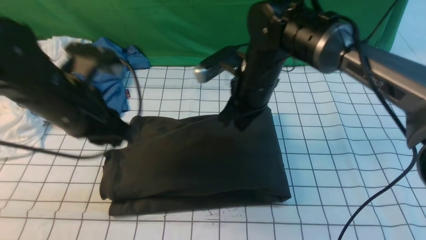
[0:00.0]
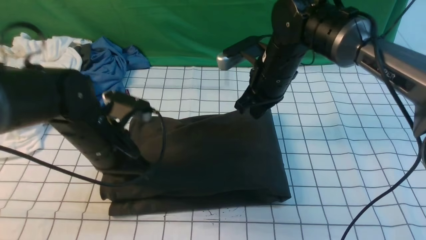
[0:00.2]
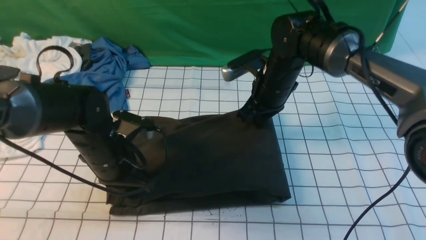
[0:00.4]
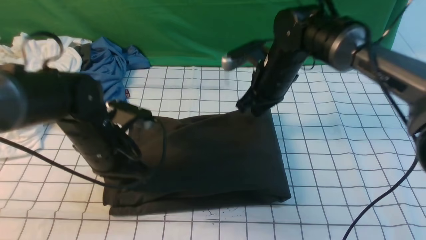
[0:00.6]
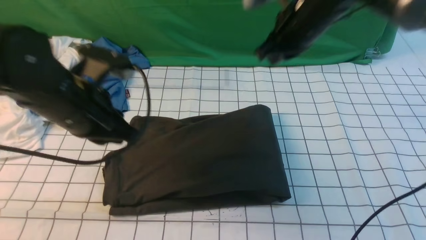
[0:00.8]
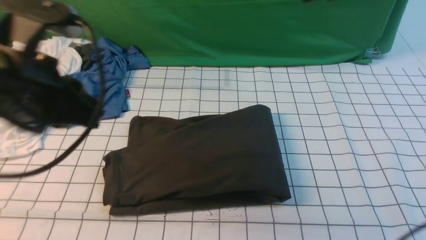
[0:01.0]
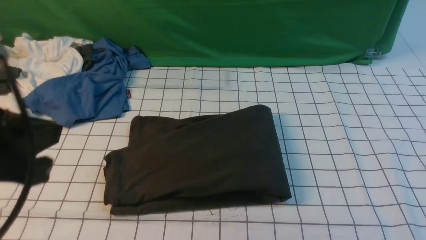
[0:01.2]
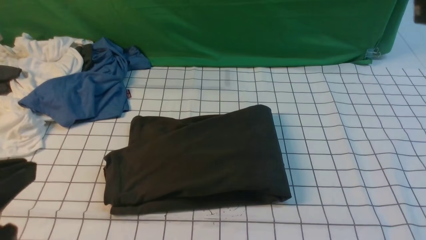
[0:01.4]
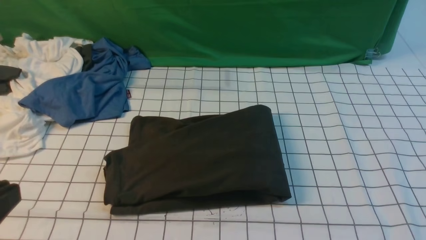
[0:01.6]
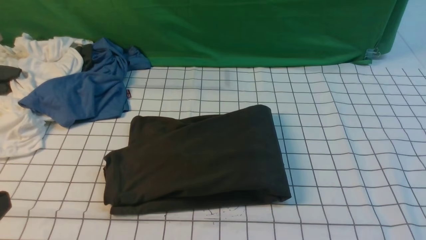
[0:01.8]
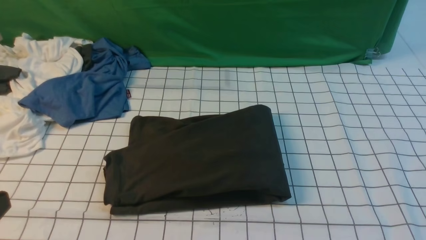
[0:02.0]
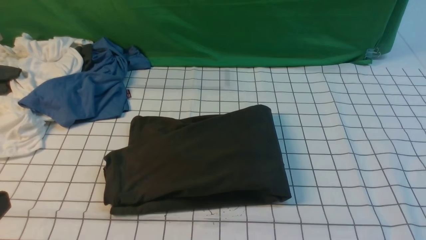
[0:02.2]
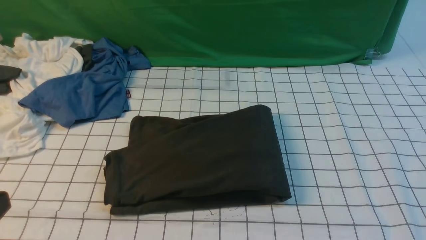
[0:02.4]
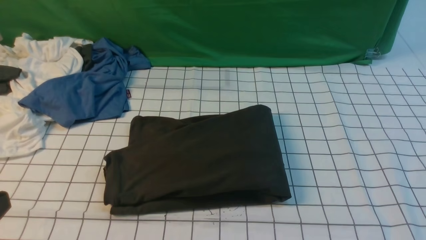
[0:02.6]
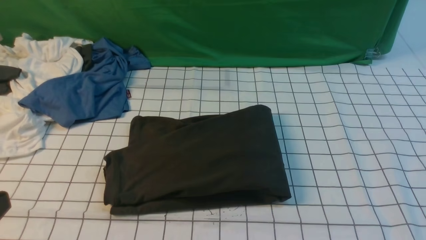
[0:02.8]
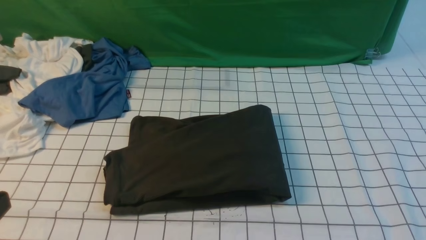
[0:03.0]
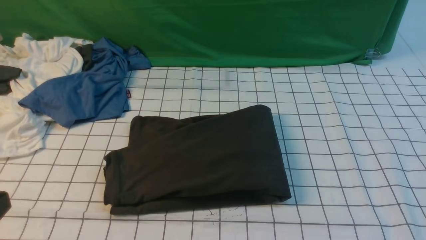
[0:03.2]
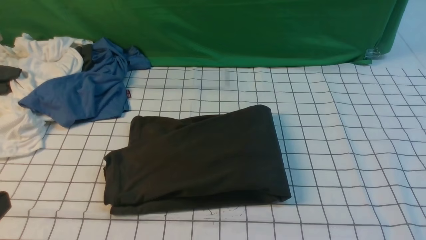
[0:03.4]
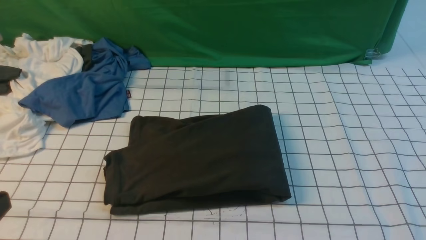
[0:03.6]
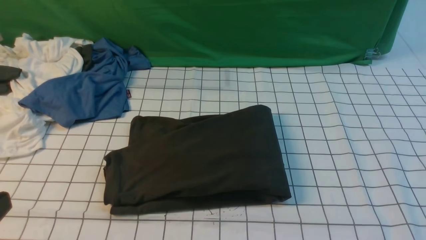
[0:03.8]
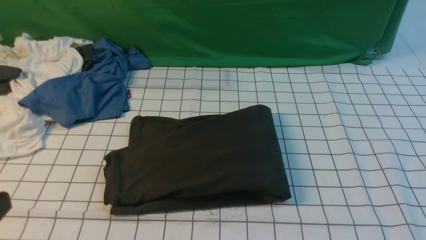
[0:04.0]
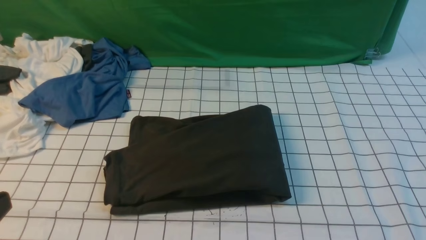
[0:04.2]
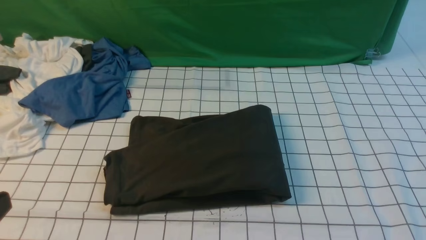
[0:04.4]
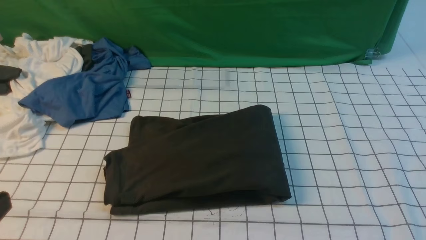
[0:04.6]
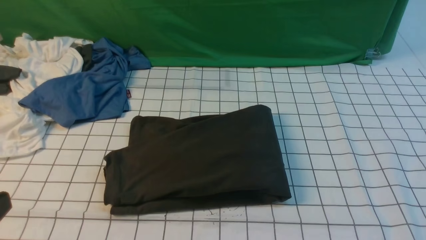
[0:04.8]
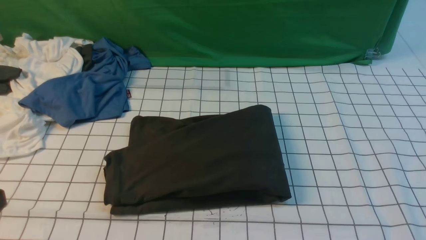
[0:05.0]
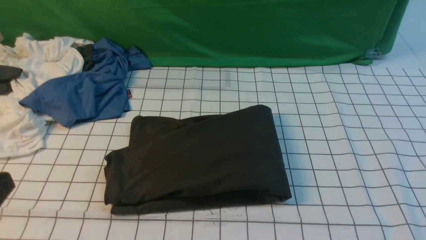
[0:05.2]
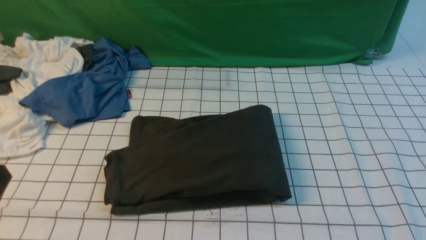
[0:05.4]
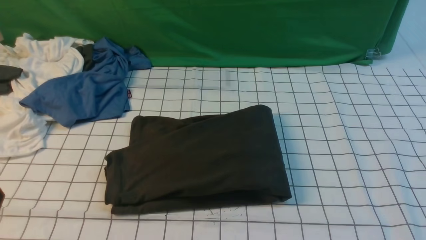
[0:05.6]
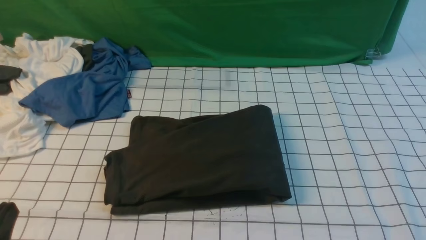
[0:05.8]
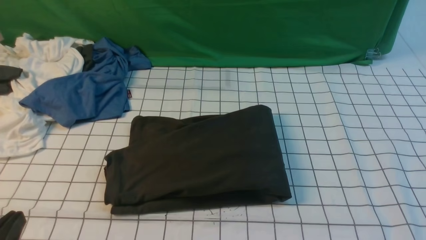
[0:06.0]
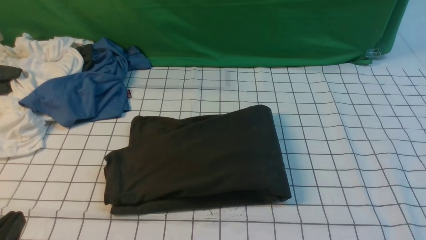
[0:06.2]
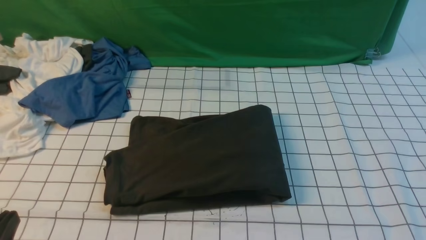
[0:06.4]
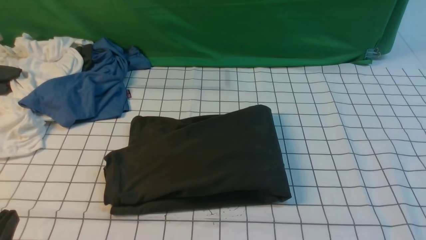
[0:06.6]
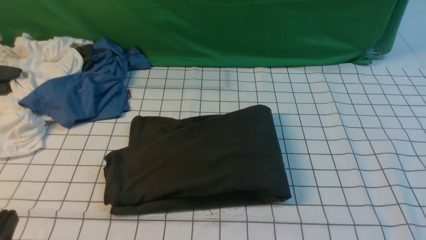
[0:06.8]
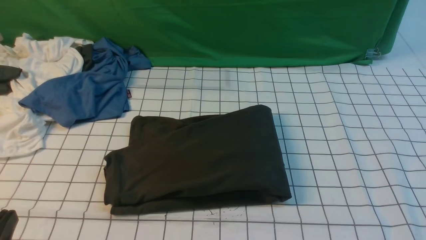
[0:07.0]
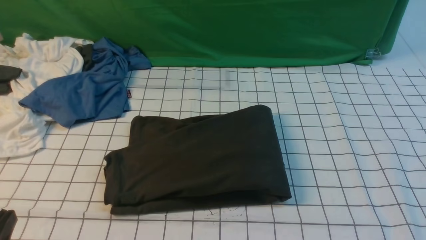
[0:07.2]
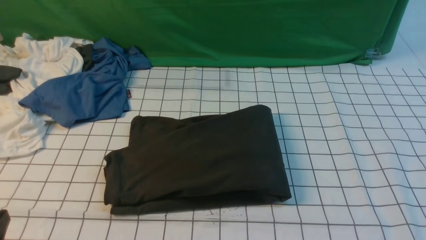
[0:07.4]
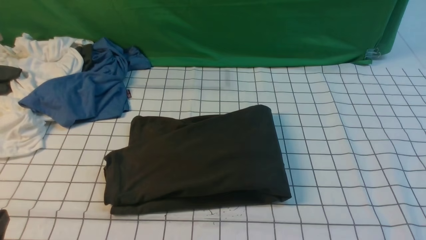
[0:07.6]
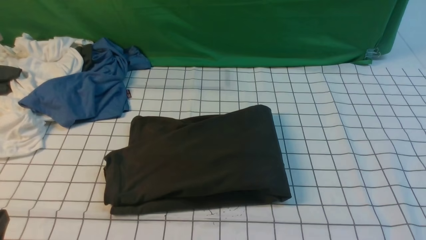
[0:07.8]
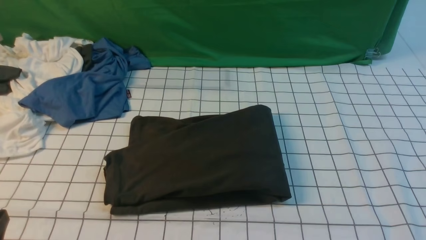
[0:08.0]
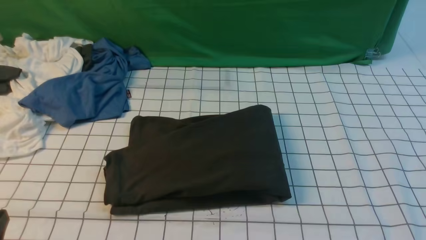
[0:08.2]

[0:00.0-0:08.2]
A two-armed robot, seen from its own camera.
0:00.0 to 0:01.6: The left gripper goes approximately 25 cm backward, while the right gripper shifts approximately 40 cm backward, to the right and upward.
0:06.6 to 0:08.2: Both grippers stay put.

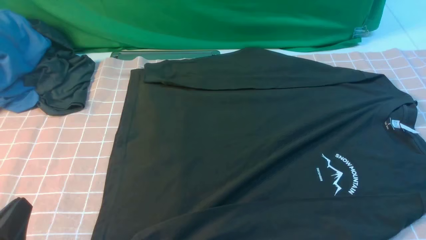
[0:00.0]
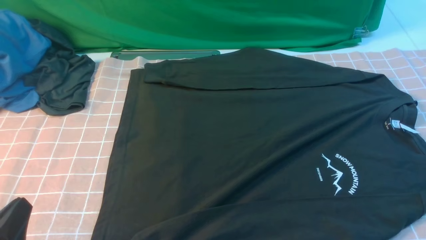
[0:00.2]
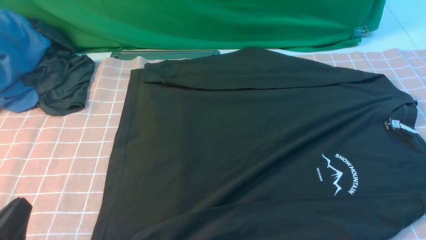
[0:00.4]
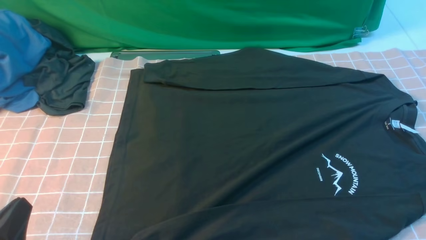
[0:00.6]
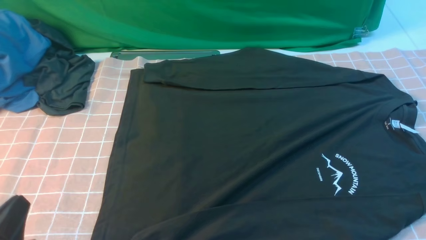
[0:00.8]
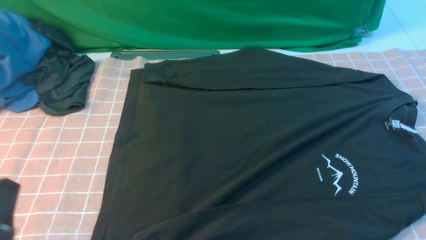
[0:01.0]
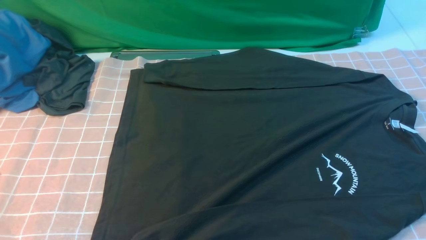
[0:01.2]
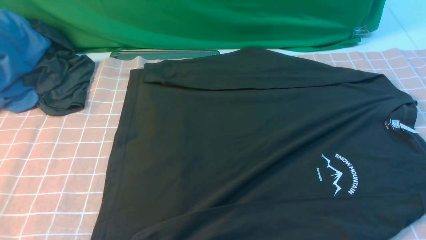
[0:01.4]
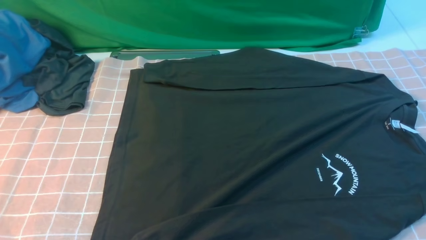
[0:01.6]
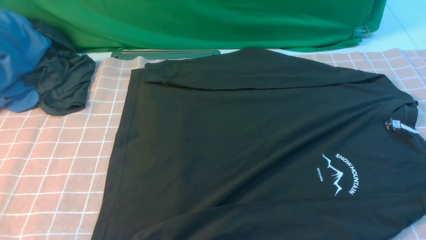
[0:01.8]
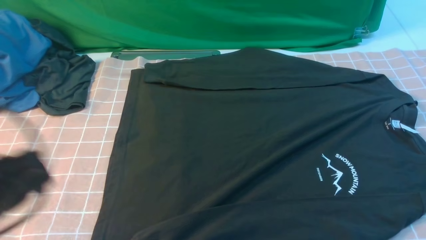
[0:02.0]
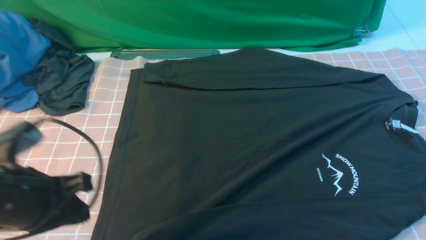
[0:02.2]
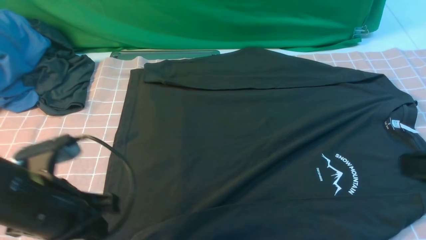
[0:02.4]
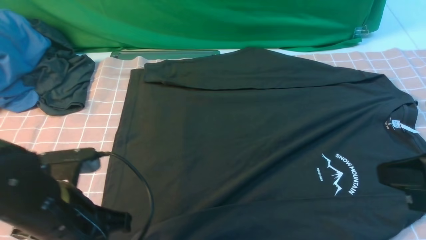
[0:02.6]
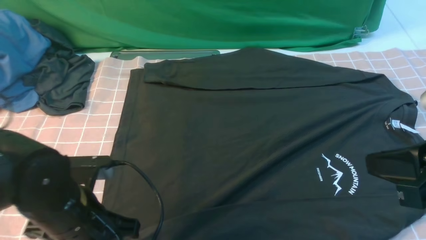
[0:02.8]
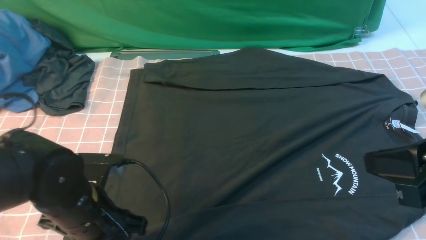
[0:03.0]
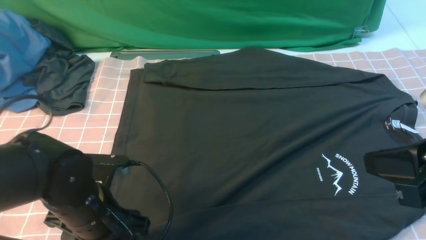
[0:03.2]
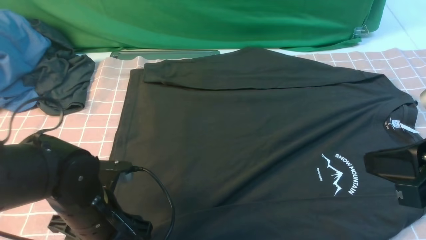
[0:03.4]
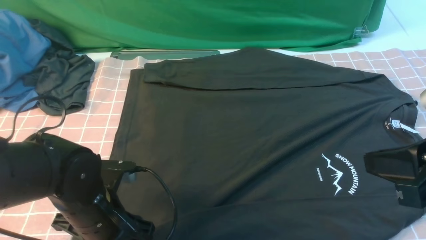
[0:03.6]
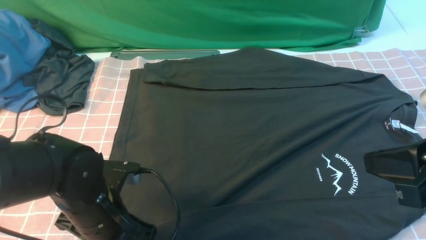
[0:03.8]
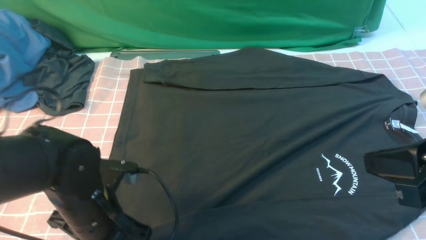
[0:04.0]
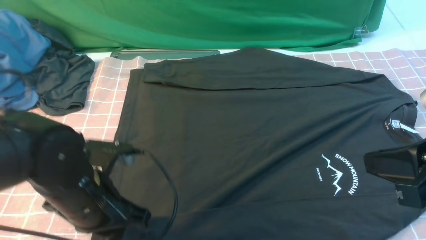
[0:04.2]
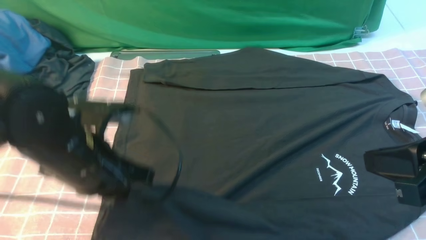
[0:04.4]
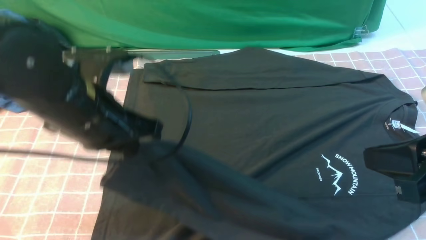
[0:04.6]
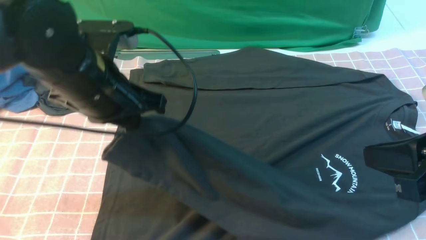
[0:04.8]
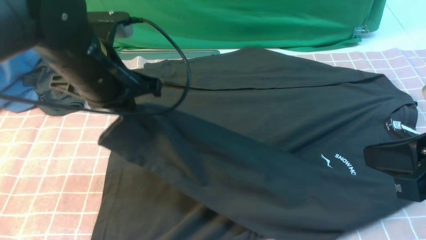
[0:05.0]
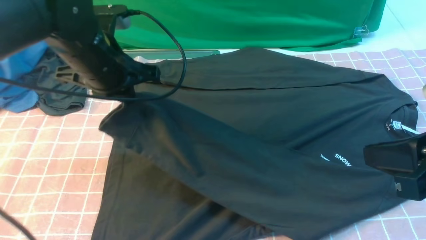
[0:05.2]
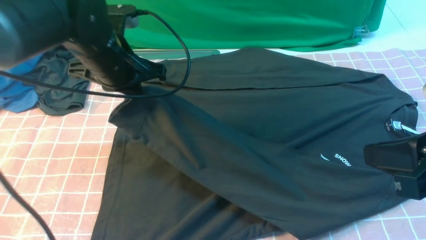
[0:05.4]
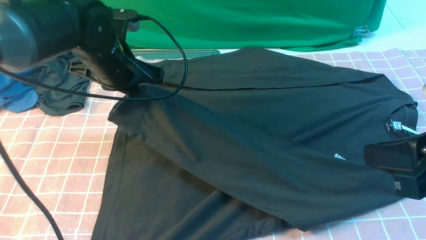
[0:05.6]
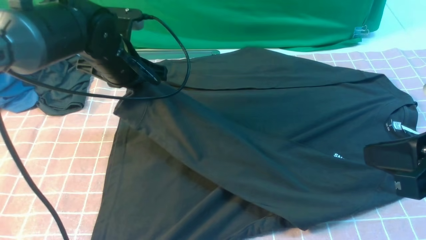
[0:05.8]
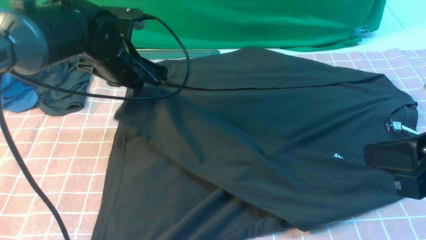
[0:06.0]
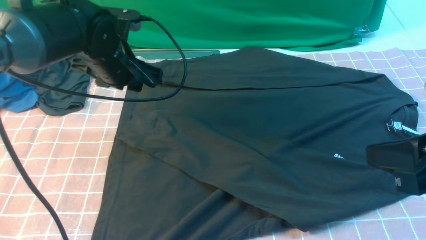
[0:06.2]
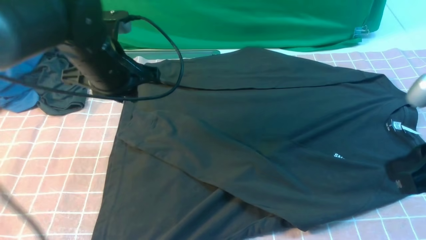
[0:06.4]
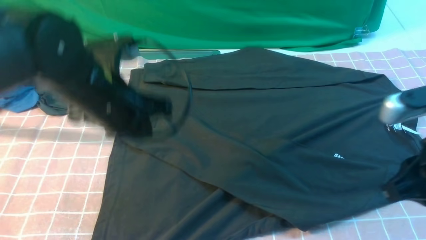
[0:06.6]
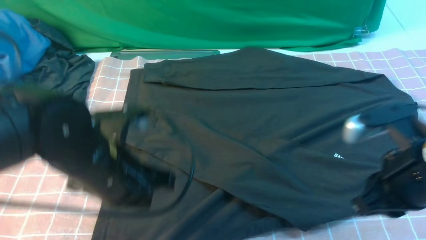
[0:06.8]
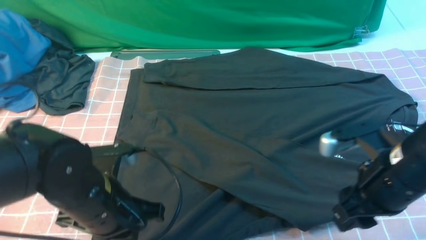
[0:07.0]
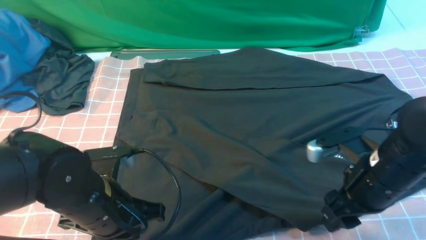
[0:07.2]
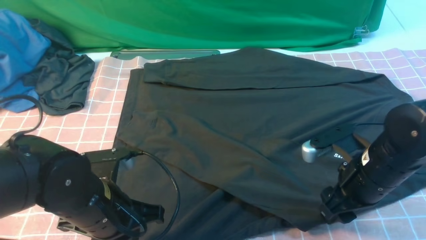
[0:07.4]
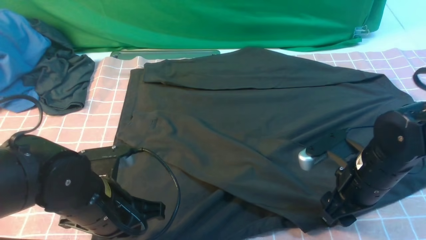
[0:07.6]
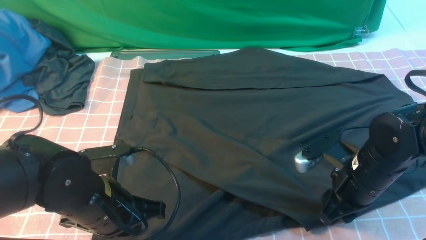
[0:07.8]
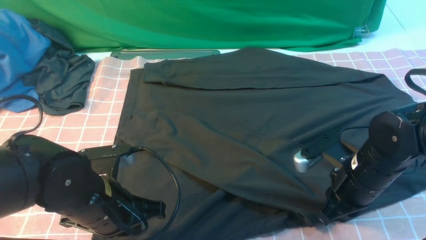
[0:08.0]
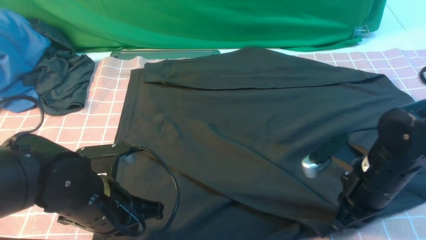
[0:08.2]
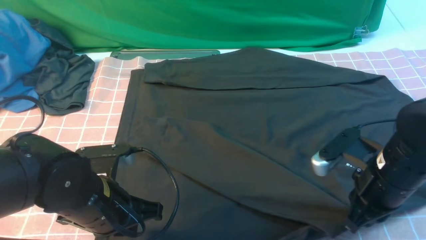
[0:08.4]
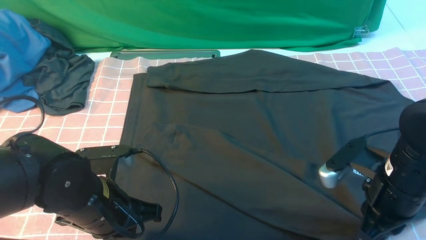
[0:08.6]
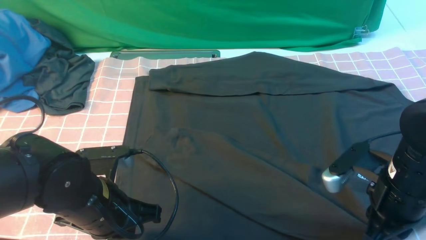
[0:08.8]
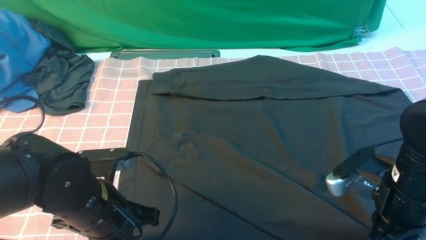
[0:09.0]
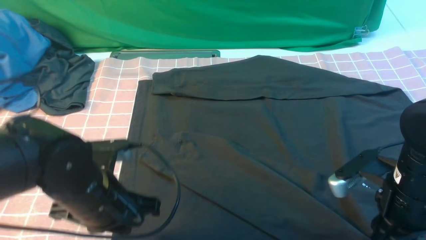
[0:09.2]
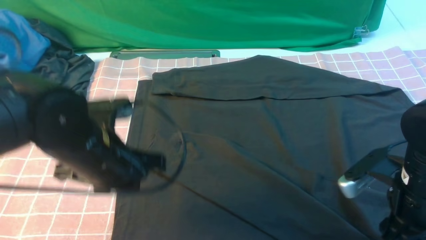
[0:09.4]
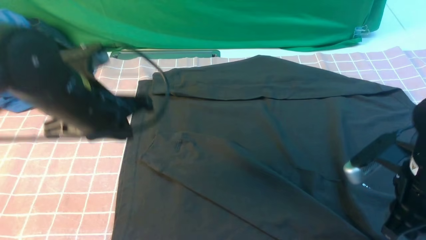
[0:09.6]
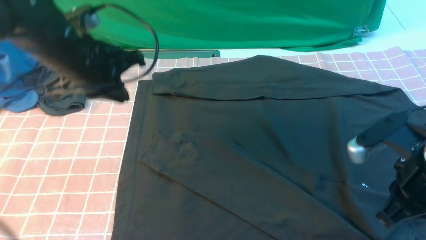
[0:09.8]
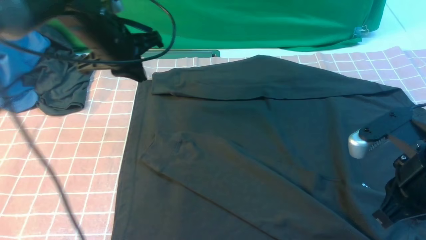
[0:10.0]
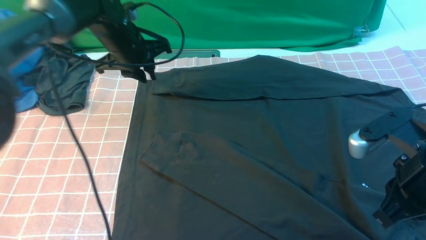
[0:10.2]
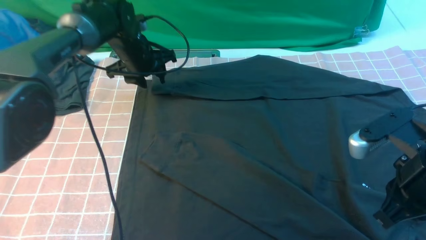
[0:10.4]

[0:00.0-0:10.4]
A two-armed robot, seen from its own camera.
Step, 0:00.0 to 0:04.2: use the left arm to clamp the cuff closest to it.
Step, 0:04.4 to 0:06.2: use the left arm to drag and place the cuff at the centered position on the left edge of the fabric.
0:00.0 to 0:01.4: The left gripper travels upward by about 5 cm.
0:01.4 to 0:03.0: The left gripper shifts about 20 cm forward, to the right and downward, and opens up. Meanwhile the right gripper is displaced upward, forward and to the left by approximately 15 cm, and closes up.
0:03.0 to 0:04.4: The left gripper moves upward, roughly 10 cm, and closes.
0:04.4 to 0:06.0: The left gripper is displaced forward by about 15 cm.
0:06.0 to 0:07.4: The right gripper is displaced downward and forward by roughly 20 cm, and opens its fingers. The left gripper goes roughly 20 cm backward.
0:07.4 to 0:09.0: The right gripper closes up.
0:09.0 to 0:10.4: The left gripper moves forward, approximately 30 cm, and opens; the right gripper shifts roughly 5 cm upward, and opens, then closes once more.
